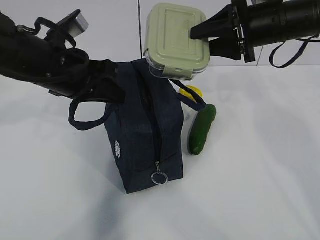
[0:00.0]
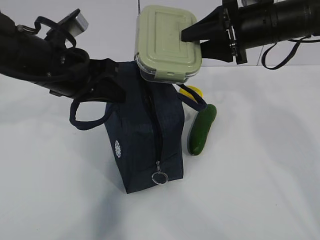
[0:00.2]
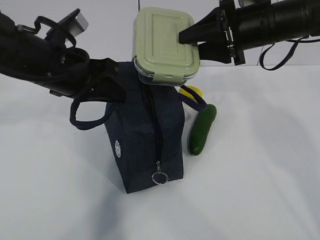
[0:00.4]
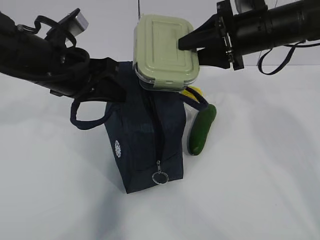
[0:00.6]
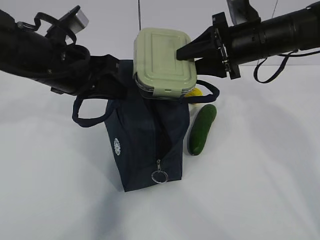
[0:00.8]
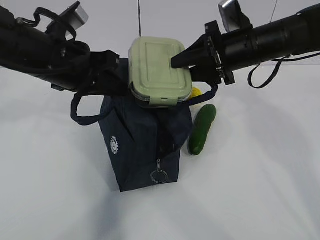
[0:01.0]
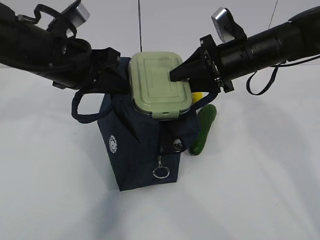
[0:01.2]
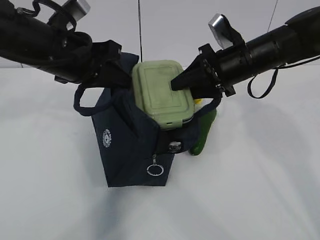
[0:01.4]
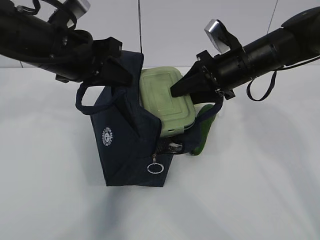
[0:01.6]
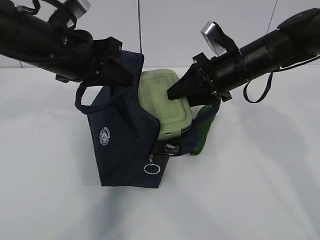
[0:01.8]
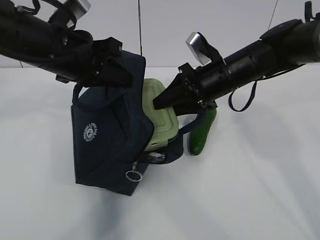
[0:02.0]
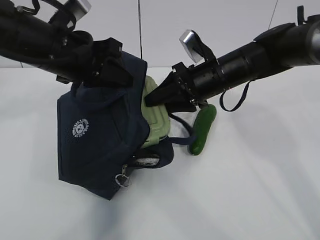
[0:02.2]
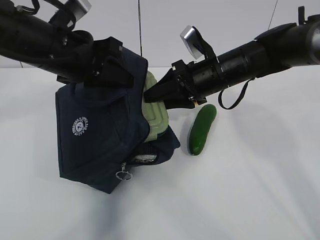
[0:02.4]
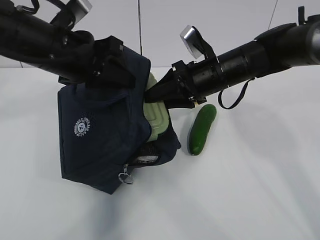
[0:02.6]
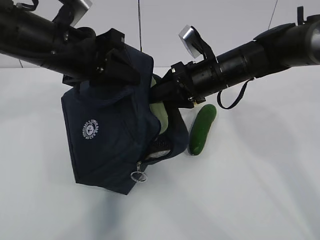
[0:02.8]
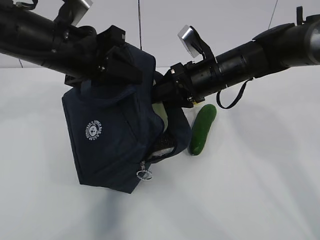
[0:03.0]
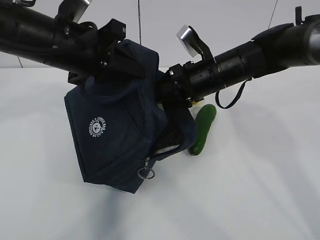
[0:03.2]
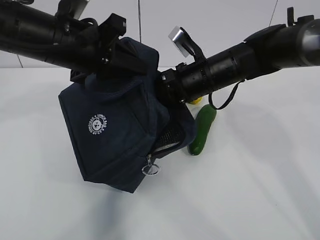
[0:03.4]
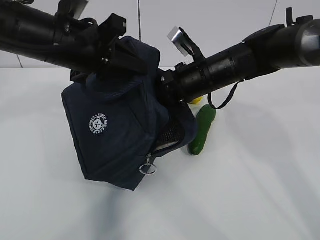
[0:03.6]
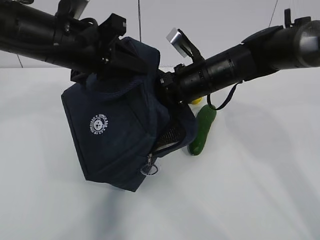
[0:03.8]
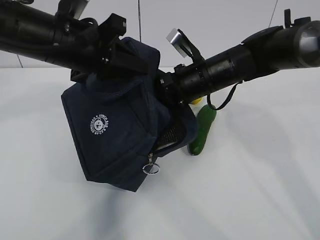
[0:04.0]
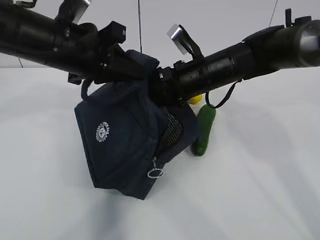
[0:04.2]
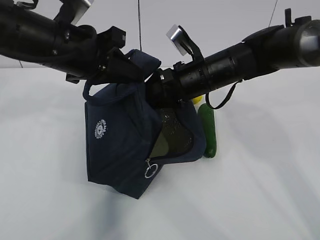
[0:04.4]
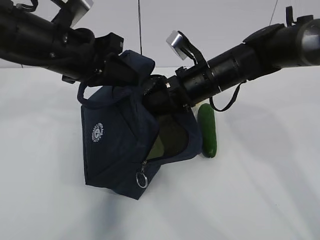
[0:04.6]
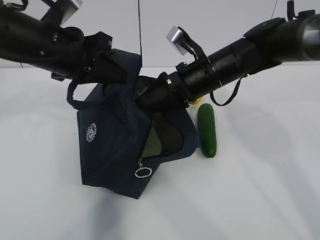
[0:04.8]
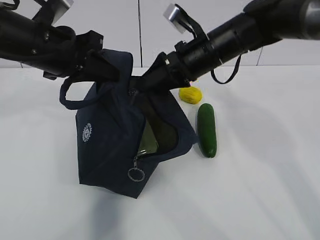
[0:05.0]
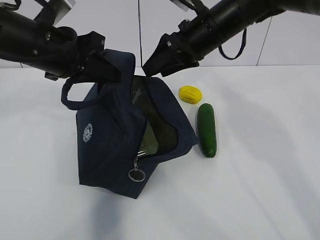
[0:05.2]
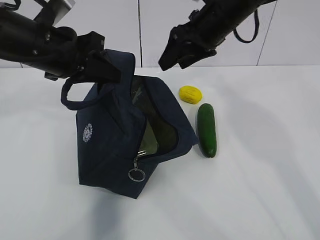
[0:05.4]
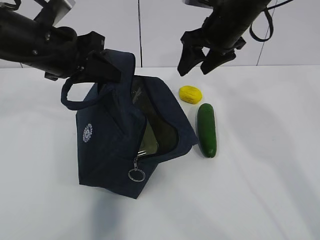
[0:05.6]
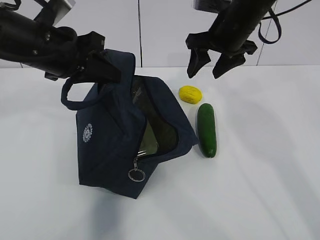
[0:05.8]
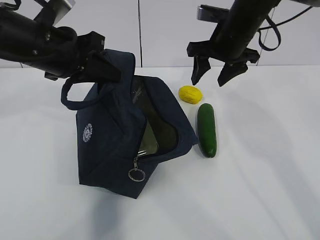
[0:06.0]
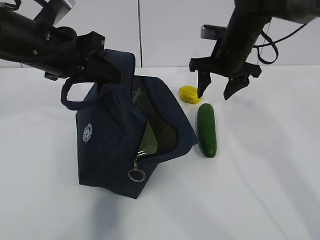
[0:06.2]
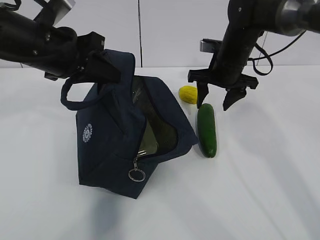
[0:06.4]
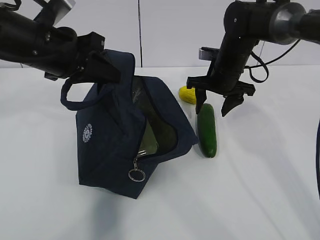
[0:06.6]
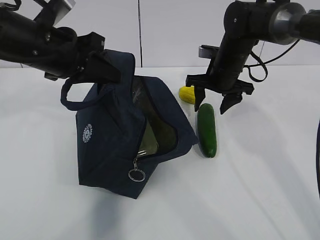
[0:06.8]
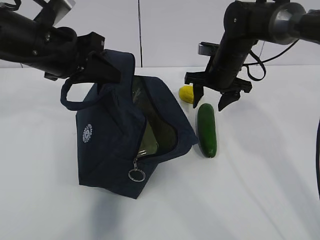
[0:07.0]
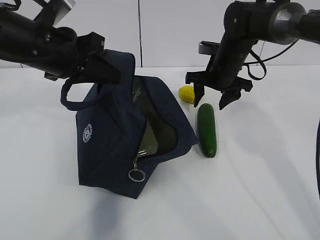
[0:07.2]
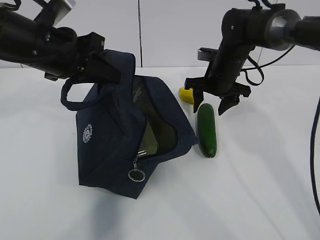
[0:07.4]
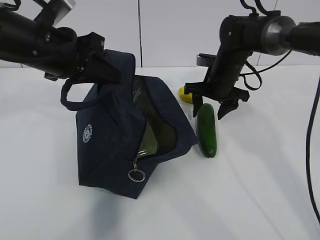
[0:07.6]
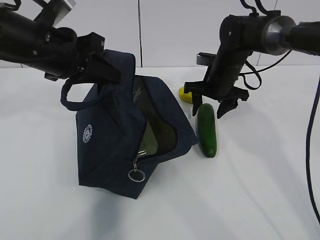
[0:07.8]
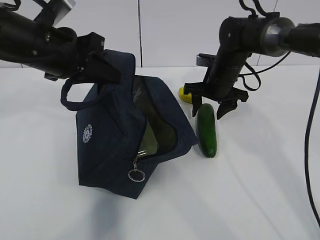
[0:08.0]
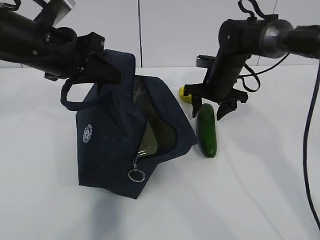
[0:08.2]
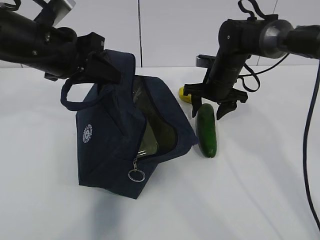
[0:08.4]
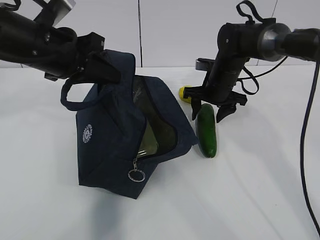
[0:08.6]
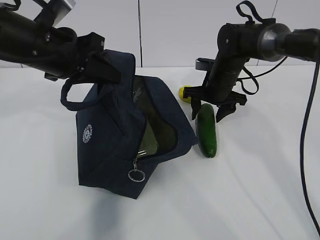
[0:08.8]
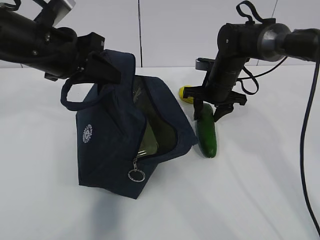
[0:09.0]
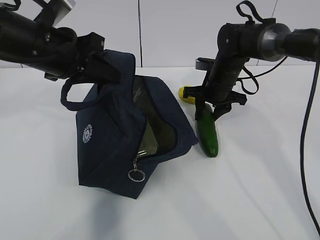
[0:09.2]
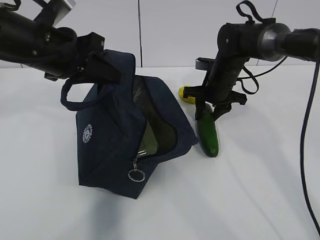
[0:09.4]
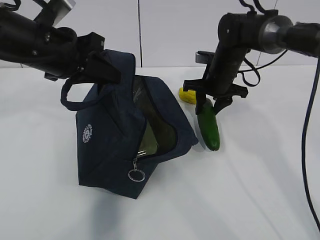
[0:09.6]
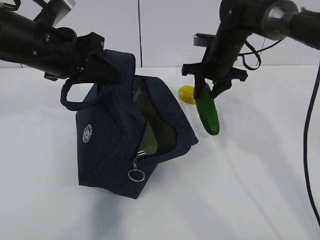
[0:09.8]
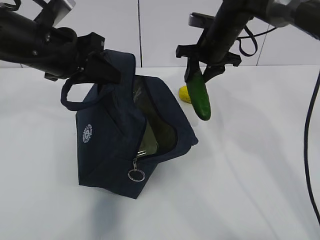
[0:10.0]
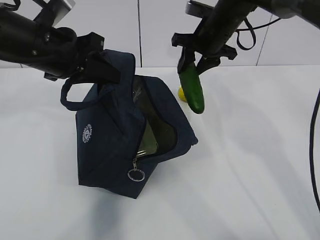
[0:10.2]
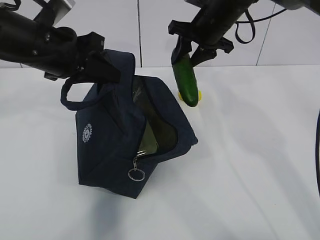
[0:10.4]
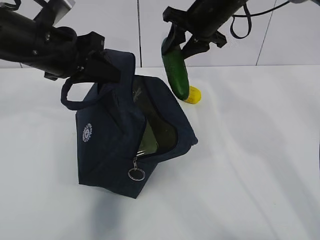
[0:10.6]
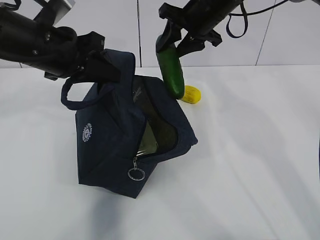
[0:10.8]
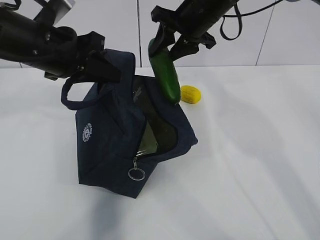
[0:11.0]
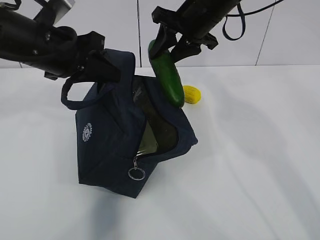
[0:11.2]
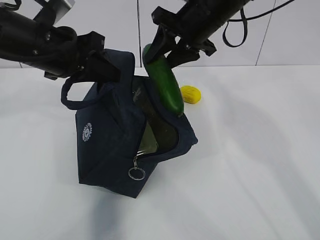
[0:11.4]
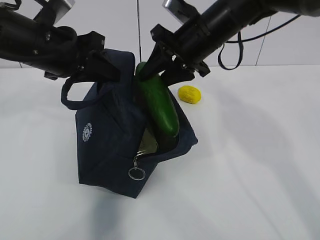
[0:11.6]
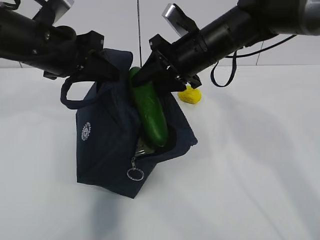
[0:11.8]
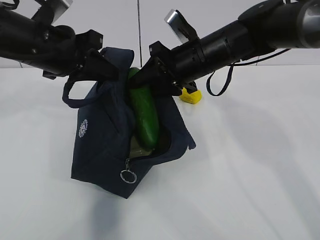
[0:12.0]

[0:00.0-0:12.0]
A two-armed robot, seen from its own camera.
Step, 0:00.0 to 0:03.6: Grab the cucumber with your right hand.
Step, 0:03.8 to 0:07.0: Place it into the bag with your right hand.
Step, 0:07.2 to 0:10.6: Grab the lemon with your right hand.
0:00.0 to 0:01.6: The right gripper goes roughly 5 cm downward.
0:01.6 to 0:03.0: There are only small adjustments of the grippers.
0:03.0 to 0:04.4: The grippers make only small movements.
0:04.4 to 0:06.0: The right gripper shifts roughly 10 cm upward and to the right.
0:06.0 to 0:07.6: The right gripper shifts about 10 cm downward.
0:07.6 to 0:09.0: The grippers stay close to where they were, moving slightly.
0:09.0 to 0:10.4: The right gripper travels upward by roughly 15 cm.
0:10.4 to 0:12.0: The right gripper is displaced backward by some 10 cm.

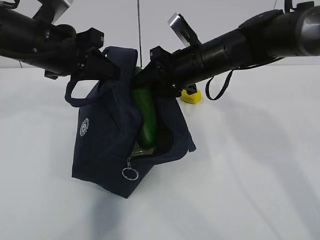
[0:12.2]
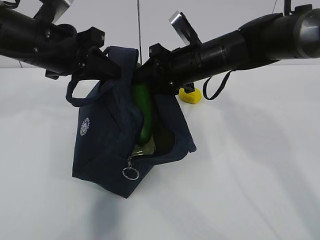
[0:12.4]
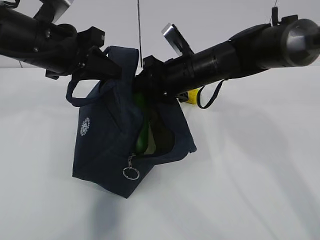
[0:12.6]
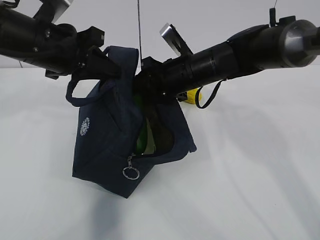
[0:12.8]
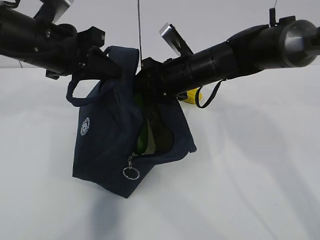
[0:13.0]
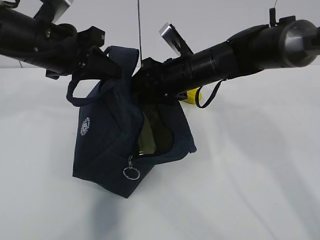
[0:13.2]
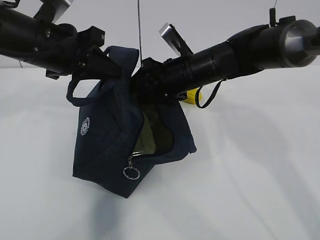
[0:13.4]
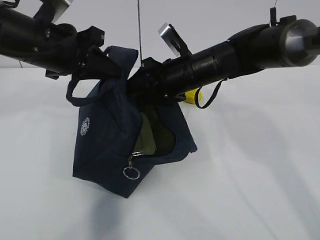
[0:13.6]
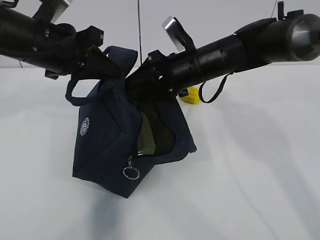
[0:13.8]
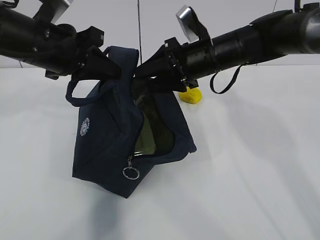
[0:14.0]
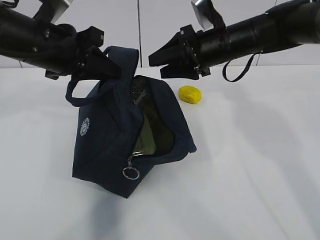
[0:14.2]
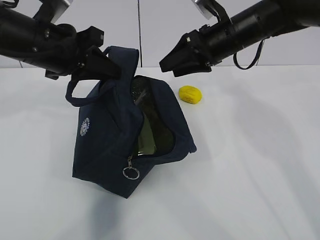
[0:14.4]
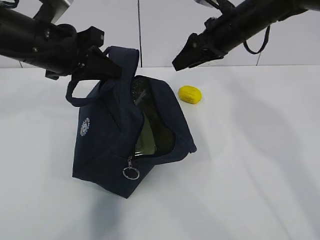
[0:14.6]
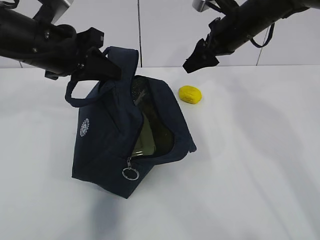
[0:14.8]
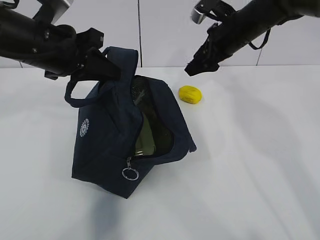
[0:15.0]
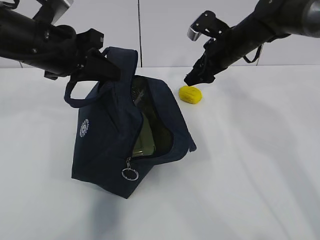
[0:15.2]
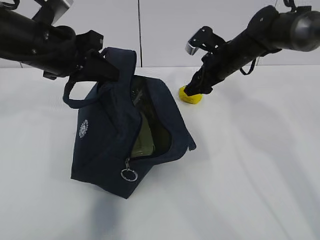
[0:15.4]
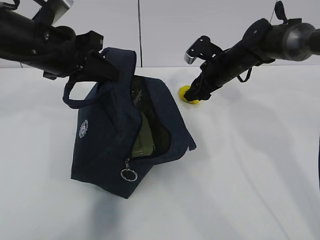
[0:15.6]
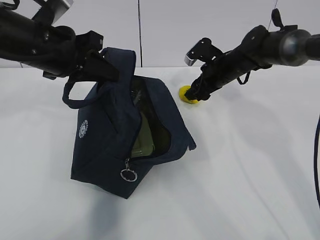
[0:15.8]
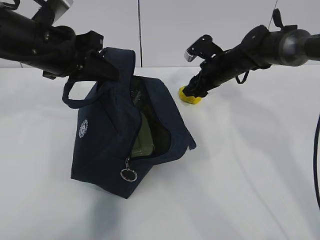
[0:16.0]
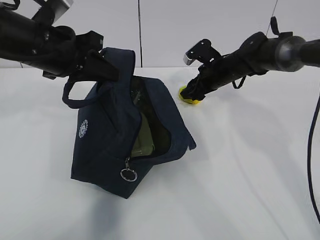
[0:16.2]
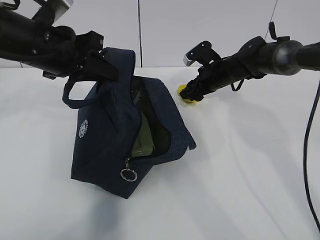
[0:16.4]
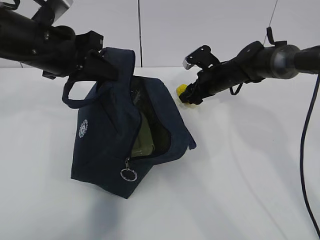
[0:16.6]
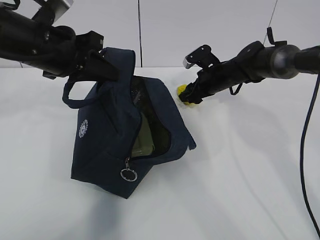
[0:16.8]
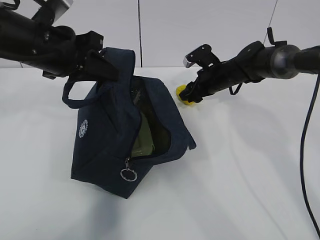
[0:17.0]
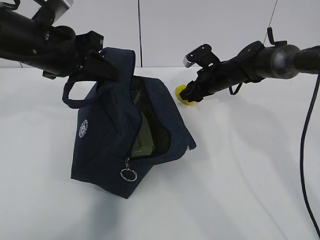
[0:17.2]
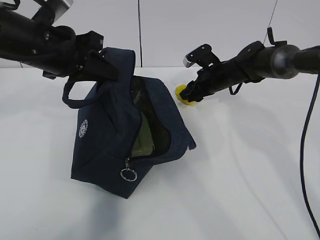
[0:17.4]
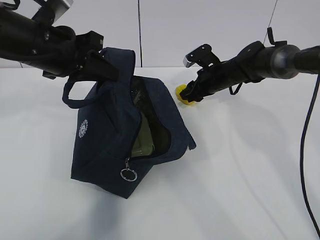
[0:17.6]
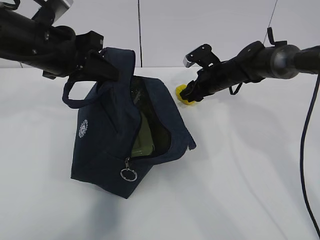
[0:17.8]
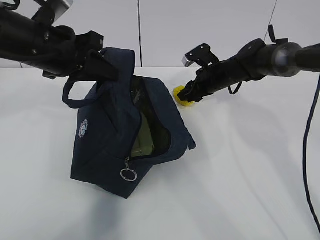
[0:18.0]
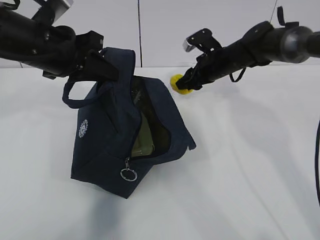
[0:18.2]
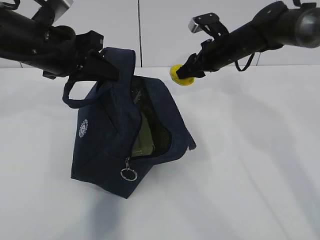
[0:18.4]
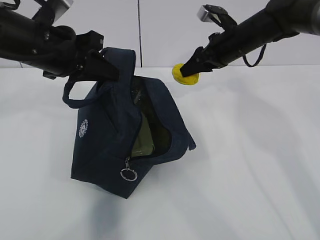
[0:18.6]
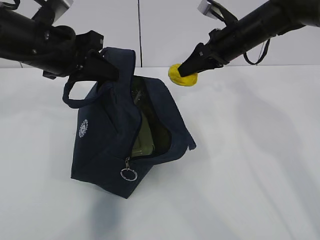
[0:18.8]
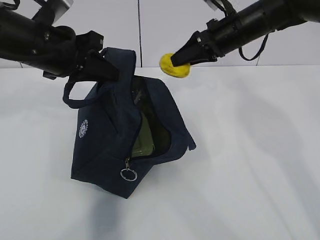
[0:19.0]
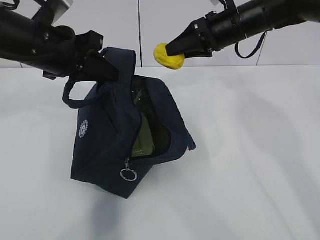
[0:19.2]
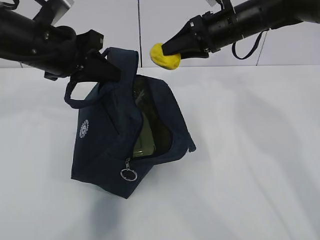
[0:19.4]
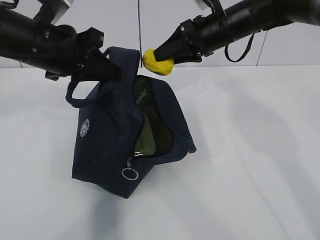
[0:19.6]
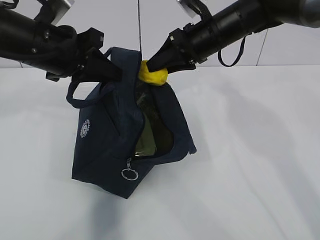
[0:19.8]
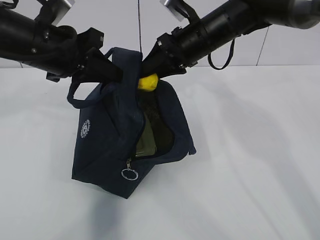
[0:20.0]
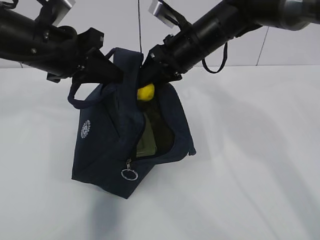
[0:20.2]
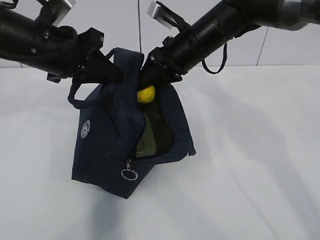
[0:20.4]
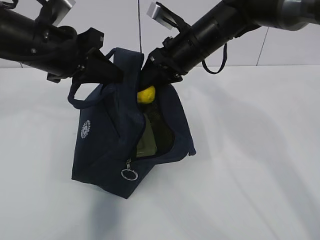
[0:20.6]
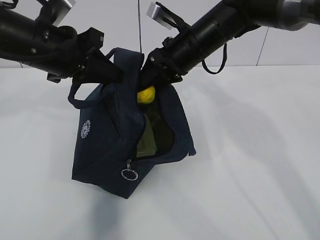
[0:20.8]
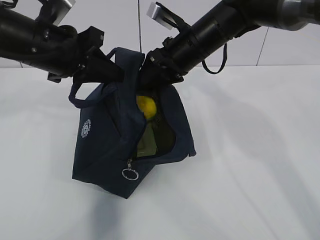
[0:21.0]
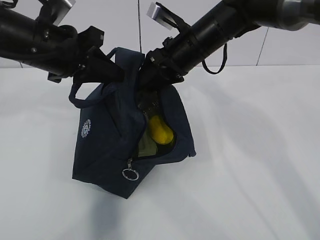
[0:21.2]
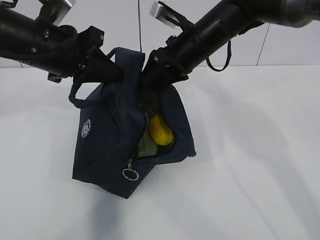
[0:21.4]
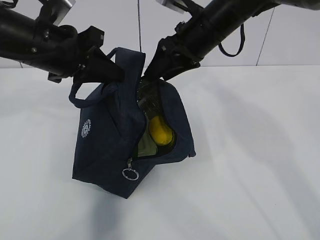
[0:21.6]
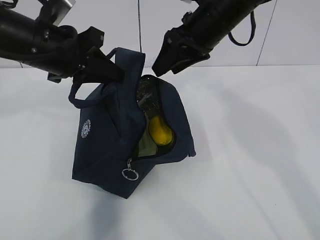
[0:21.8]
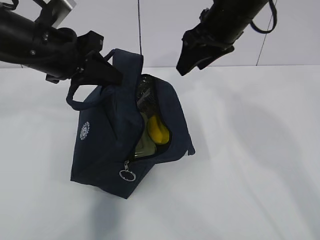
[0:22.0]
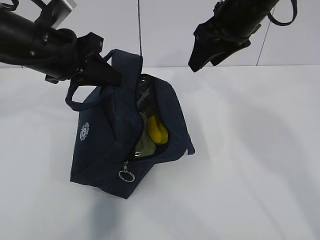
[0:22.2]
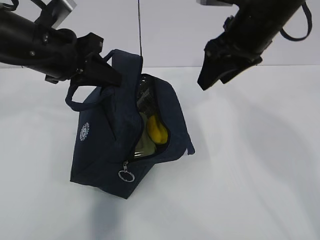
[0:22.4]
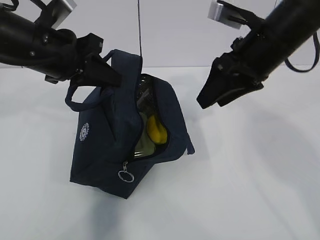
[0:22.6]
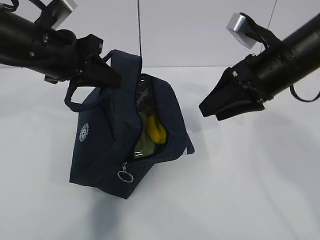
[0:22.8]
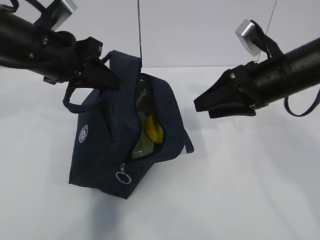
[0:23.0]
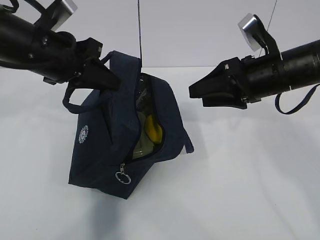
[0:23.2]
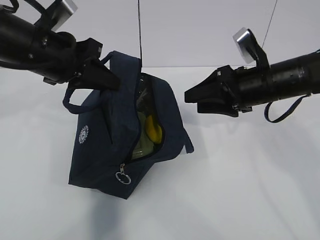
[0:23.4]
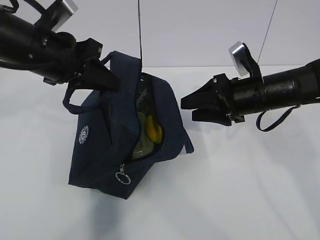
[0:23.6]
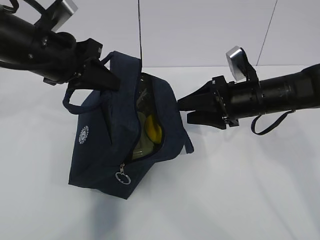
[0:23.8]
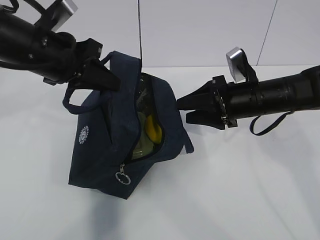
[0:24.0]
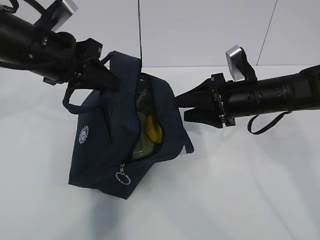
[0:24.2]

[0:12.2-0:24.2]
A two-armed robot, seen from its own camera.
Step, 0:14.0 to 0:17.2: Grab the lunch bag with your right hand.
0:12.2 to 0:13.8: There are only small adjustments of the grippers.
0:13.8 to 0:15.2: The right gripper moves to the right and forward, roughly 10 cm.
0:15.2 to 0:16.6: The right gripper heads downward, covering about 10 cm.
0:16.6 to 0:18.2: The grippers stay close to where they were, moving slightly.
0:18.2 to 0:19.8: The right gripper travels upward and backward by about 10 cm.
0:19.8 to 0:21.2: The grippers move only a little.
0:21.2 to 0:22.6: The right gripper shifts roughly 10 cm to the right and backward.
0:22.6 to 0:24.2: The right gripper is displaced downward by roughly 10 cm.
